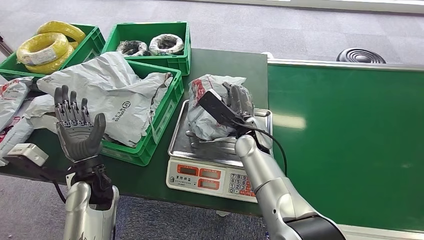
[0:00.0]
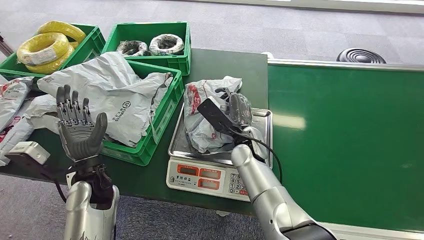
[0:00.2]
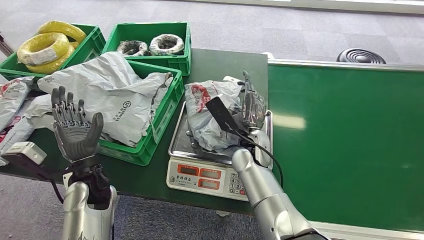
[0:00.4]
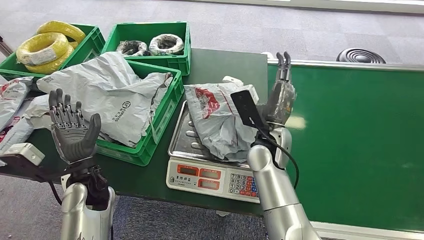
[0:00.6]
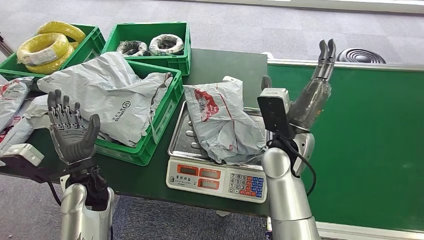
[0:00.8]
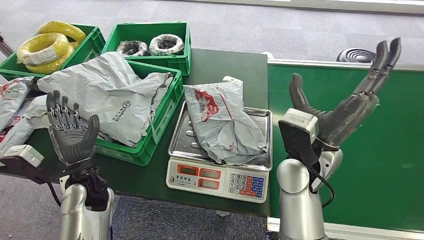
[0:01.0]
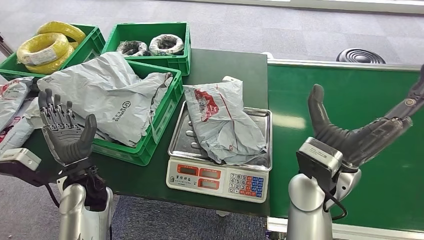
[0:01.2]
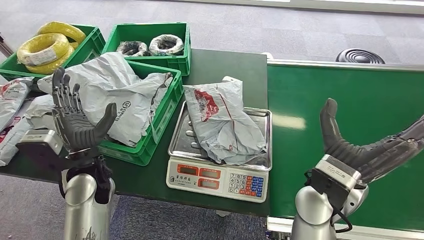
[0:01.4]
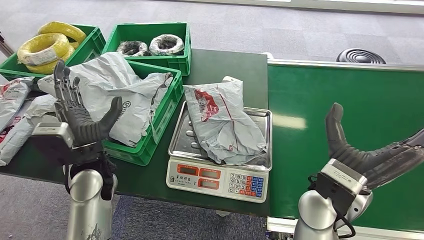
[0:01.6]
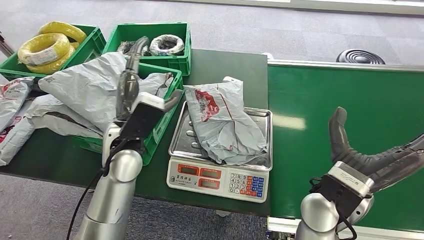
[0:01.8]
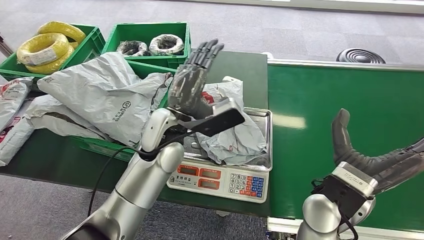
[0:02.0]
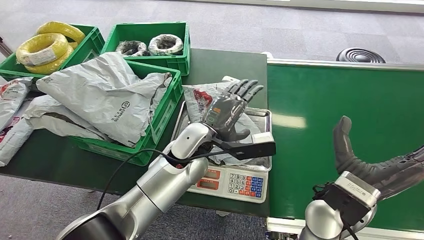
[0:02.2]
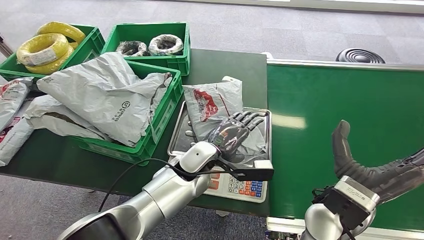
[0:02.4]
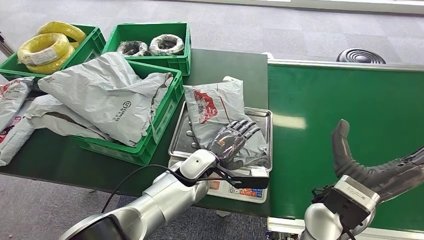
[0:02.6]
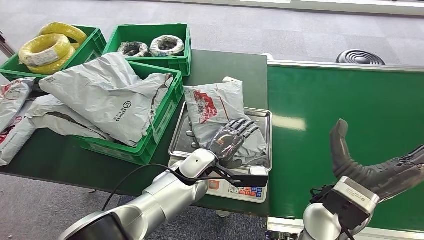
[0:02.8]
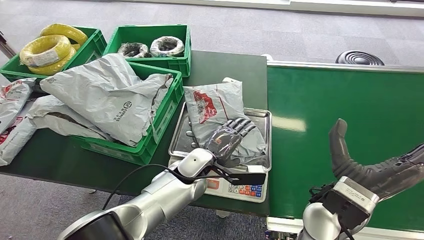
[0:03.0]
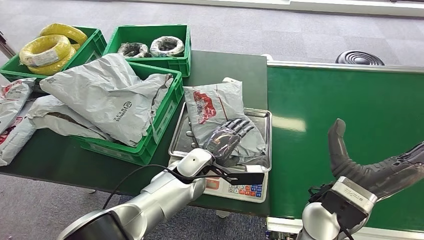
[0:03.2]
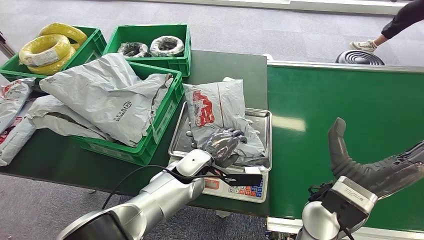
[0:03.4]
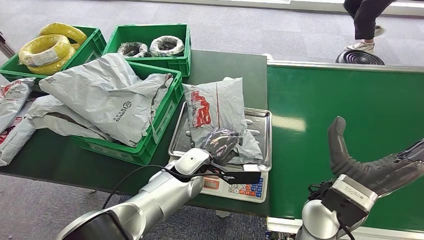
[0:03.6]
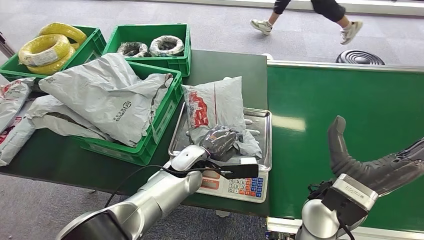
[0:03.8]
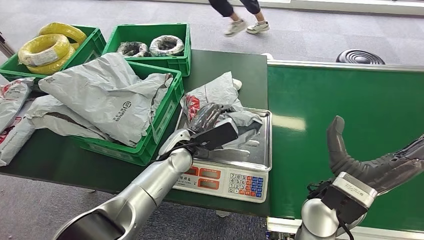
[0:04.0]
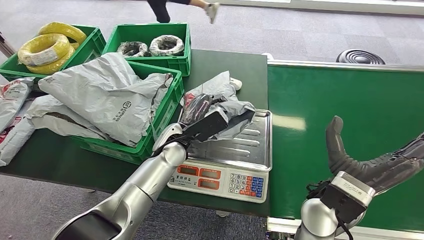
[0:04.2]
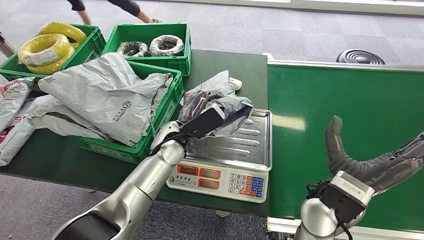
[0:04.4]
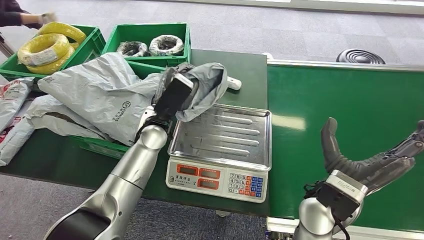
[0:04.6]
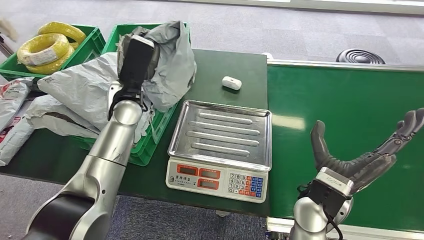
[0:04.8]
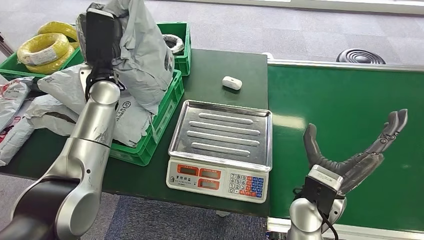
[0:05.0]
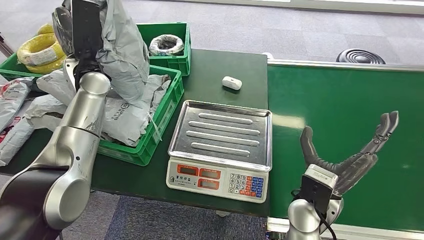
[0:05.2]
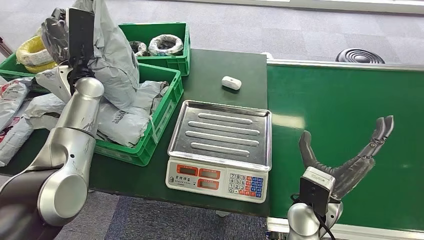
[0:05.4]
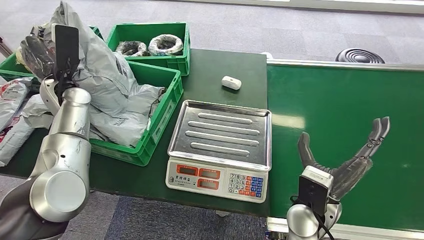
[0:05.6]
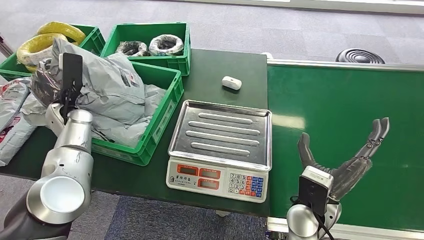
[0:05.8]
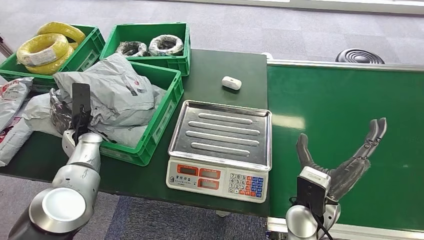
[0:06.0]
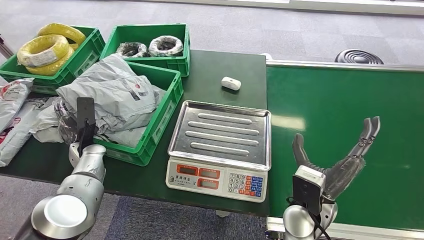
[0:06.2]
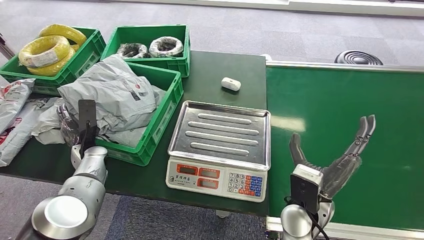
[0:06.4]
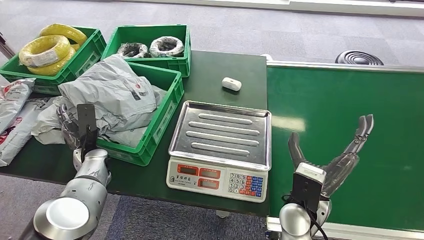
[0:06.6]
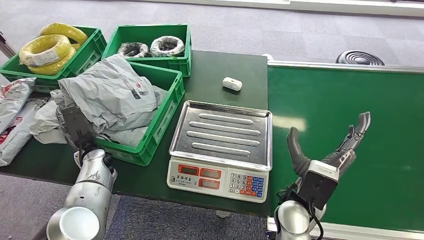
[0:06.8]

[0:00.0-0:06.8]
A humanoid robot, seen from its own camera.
Step, 0:01.2 to 0:05.0: Pick up the package from the inbound machine.
Step, 0:05.2 to 0:06.8: Place the package into the parcel locker.
0:00.0 to 0:01.4: The right hand heads backward, to the right and upward, covering roughly 20 cm.
0:02.8 to 0:04.0: The left hand ends up about 5 cm from where it was.
